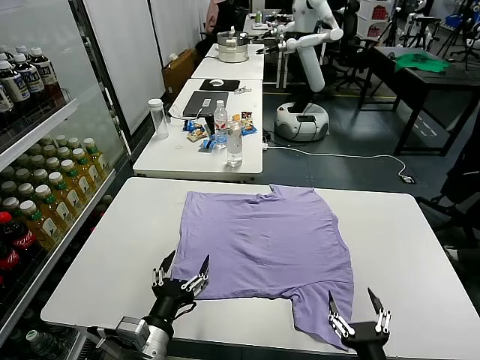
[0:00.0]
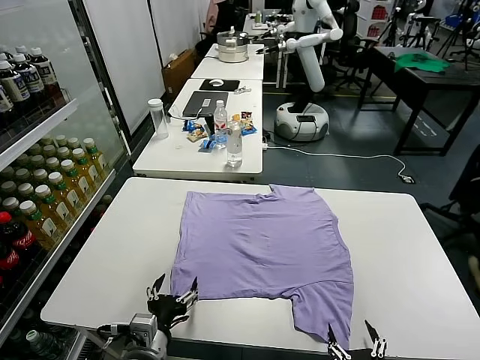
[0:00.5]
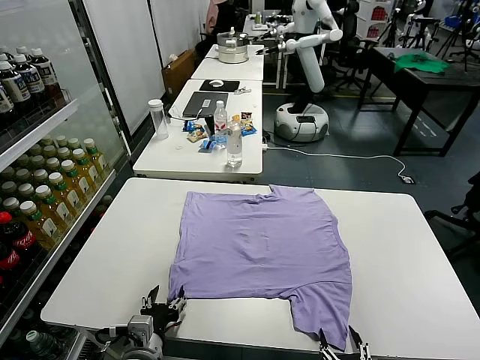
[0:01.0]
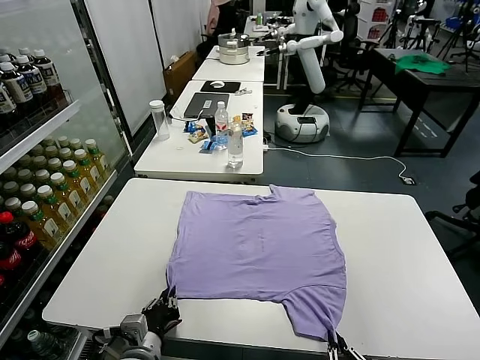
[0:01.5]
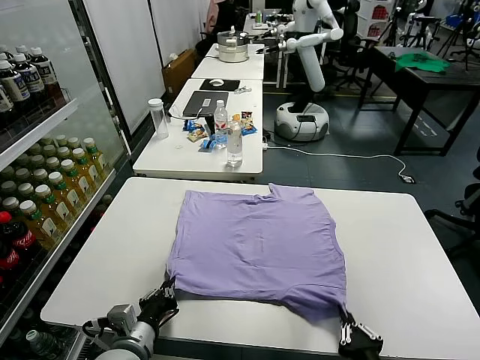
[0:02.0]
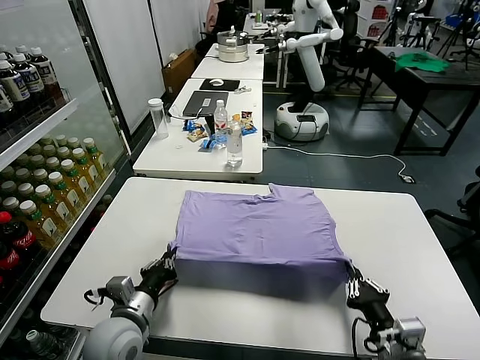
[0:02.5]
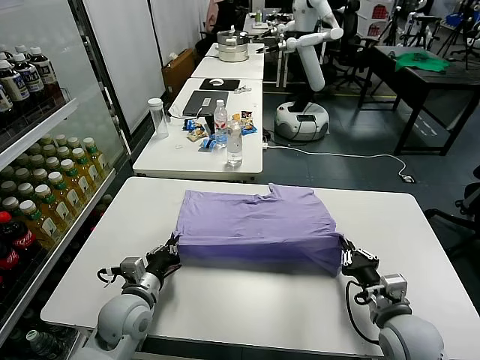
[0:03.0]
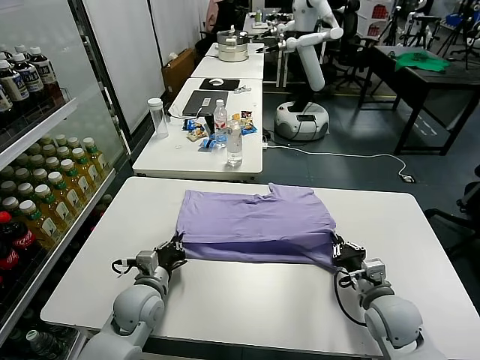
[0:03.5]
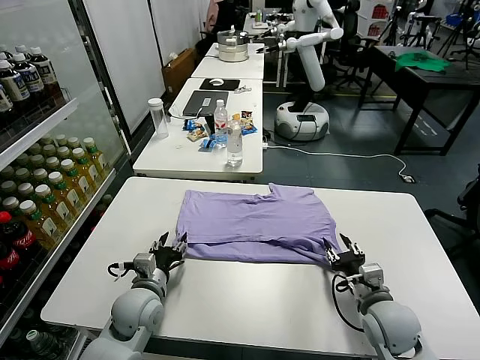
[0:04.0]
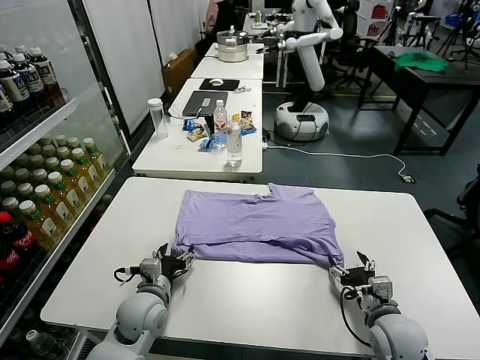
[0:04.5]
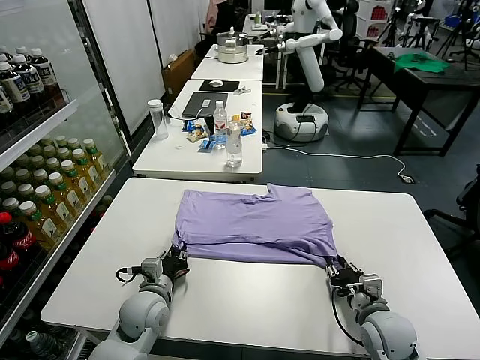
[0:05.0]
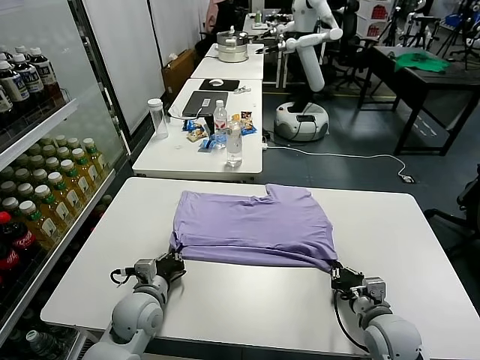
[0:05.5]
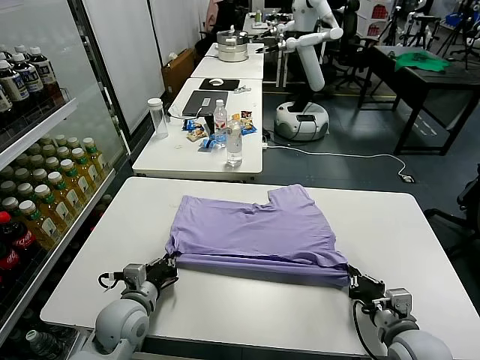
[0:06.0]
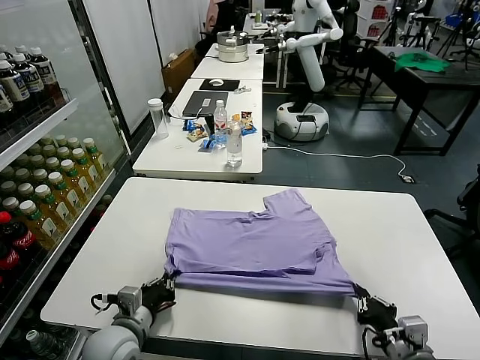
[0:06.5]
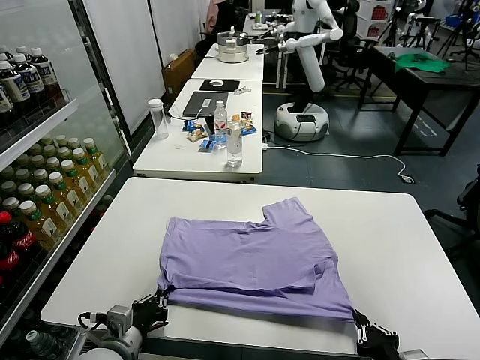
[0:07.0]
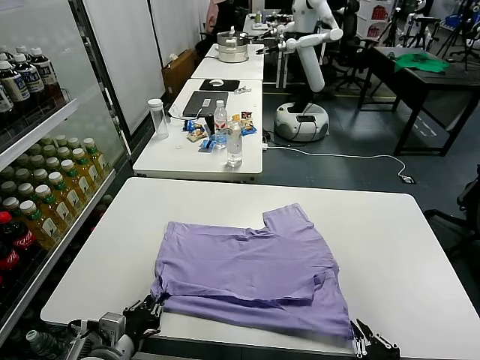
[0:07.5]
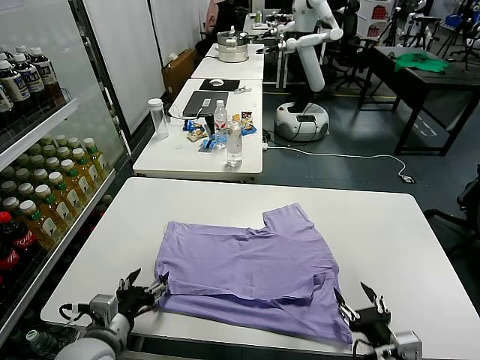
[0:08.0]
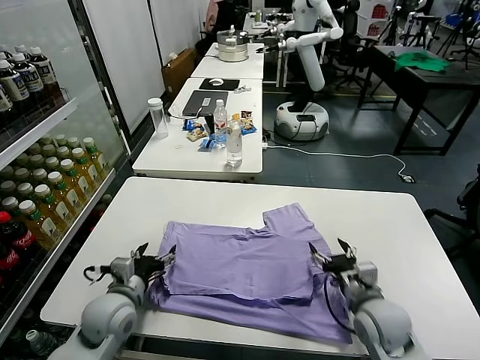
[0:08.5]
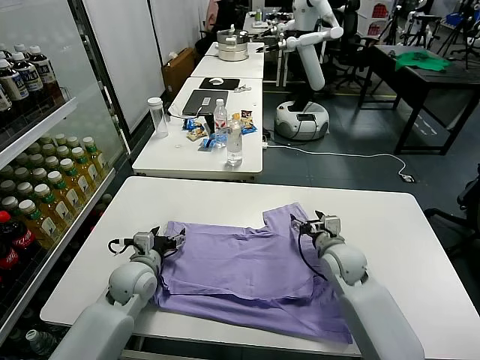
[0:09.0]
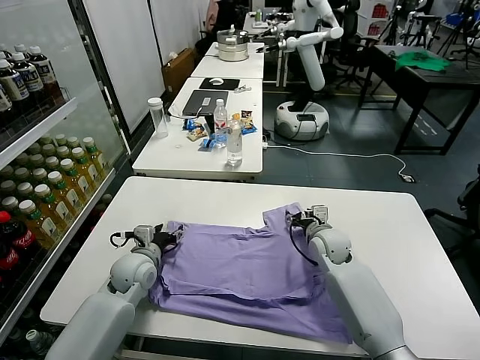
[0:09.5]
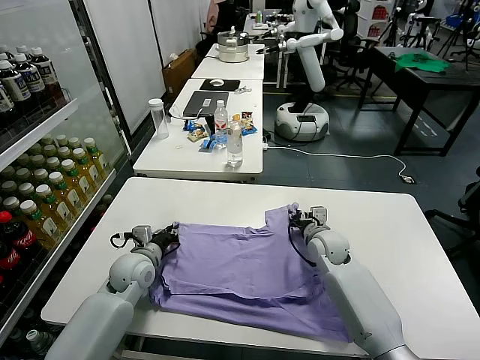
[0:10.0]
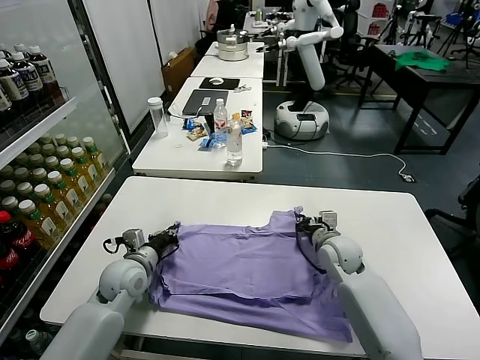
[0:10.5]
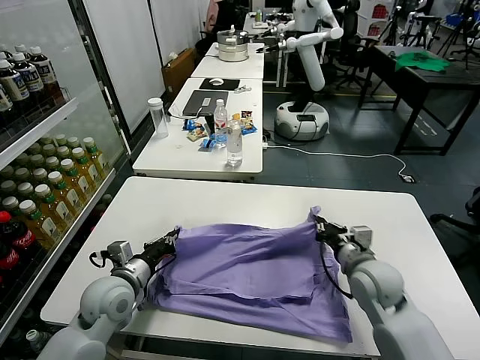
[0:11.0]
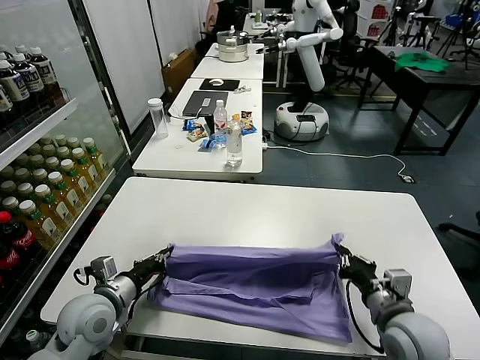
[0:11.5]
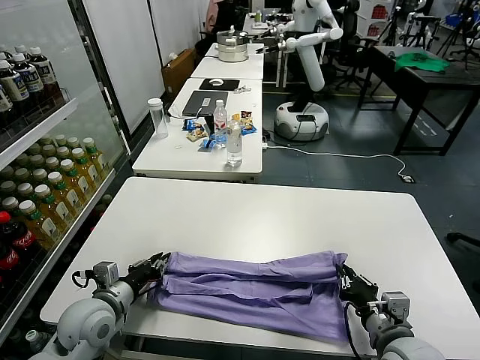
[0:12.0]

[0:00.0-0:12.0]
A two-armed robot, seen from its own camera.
Task of the whole recording: fold and organize the clothes.
Step, 0:00.0 to 0:01.5: use both grippers simultaneously to clamp the lower edge of the clothing fabric.
Step, 0:02.0 to 0:04.0: use both grippers to drag the lower edge of the fabric forward and fold it over the upper edge.
Step, 0:04.5 to 0:07.5: Drag the clothes downward with both gripper.
Step, 0:08.0 to 0:10.0: use both grippers simultaneously to clamp the upper edge of the clothing fabric.
0:02.0 to 0:04.0: Both grippers move forward, about 15 cm. The right gripper opens up. The left gripper opens.
0:04.0 to 0:06.0: The left gripper closes its fingers; the right gripper heads backward, covering approximately 5 cm, and closes its fingers.
0:06.0 to 0:08.0: The right gripper opens; the left gripper shifts approximately 10 cm backward, and opens.
0:08.0 to 0:10.0: The right gripper shifts roughly 30 cm forward, and closes up; the left gripper shifts some 20 cm forward, and closes.
0:10.0 to 0:12.0: The right gripper goes roughly 30 cm backward; the left gripper travels backward by about 15 cm.

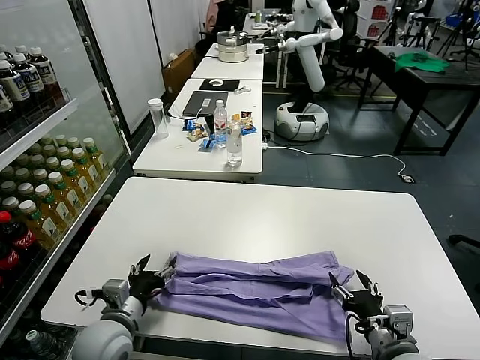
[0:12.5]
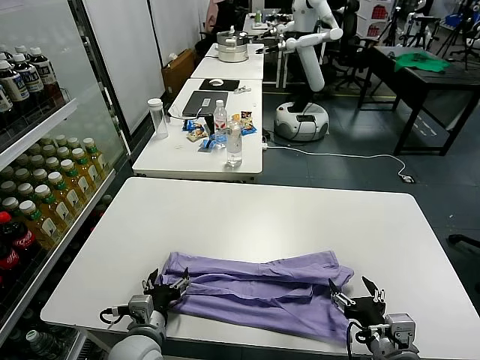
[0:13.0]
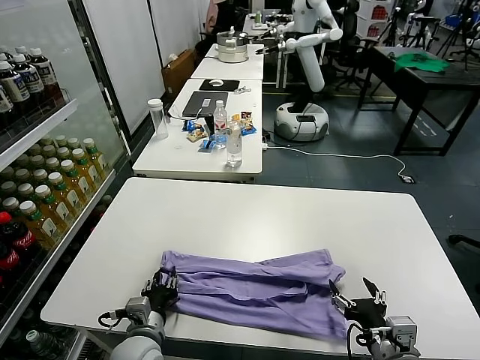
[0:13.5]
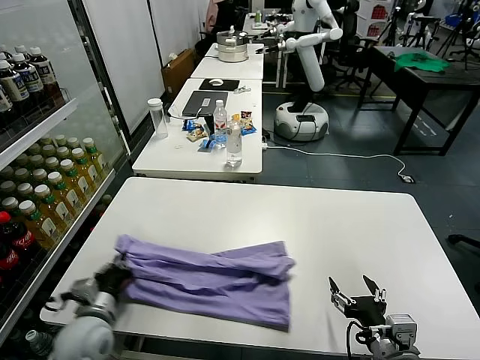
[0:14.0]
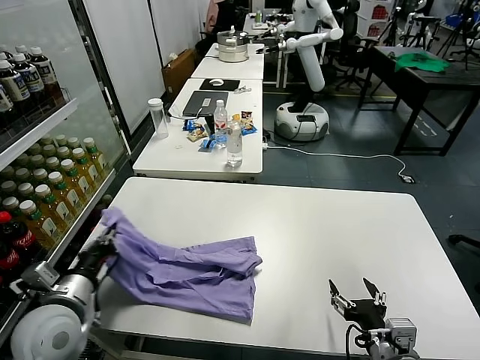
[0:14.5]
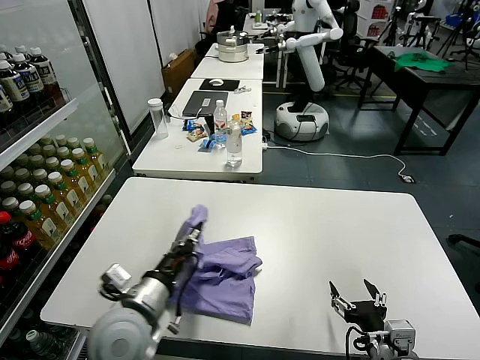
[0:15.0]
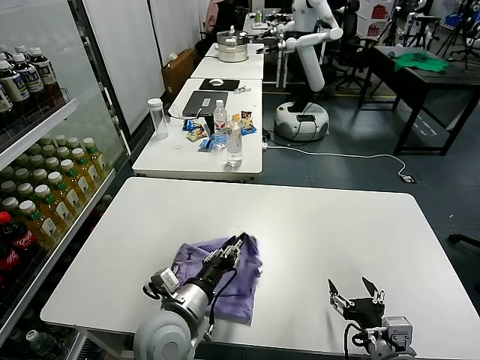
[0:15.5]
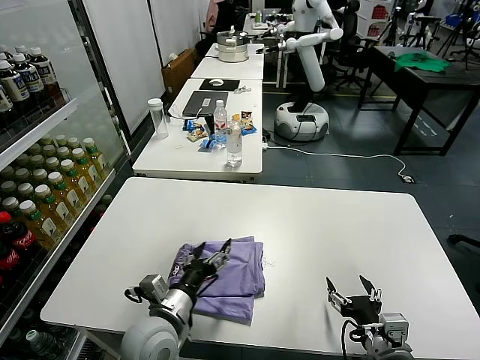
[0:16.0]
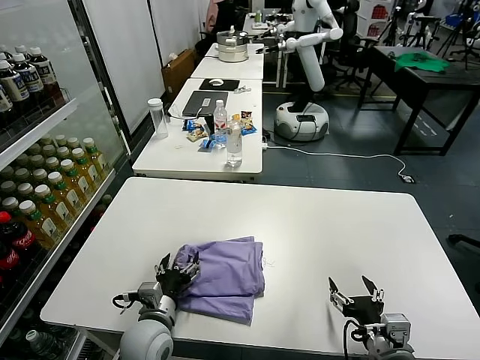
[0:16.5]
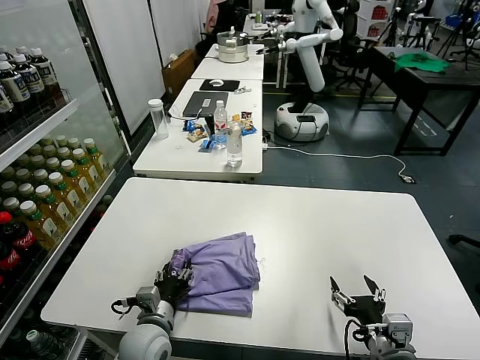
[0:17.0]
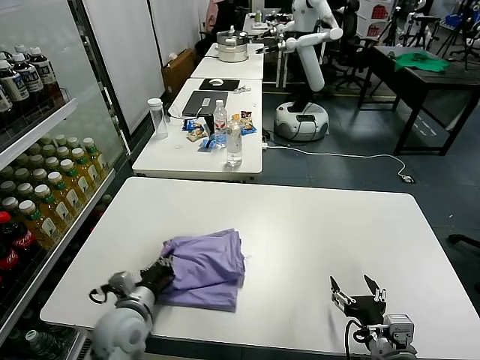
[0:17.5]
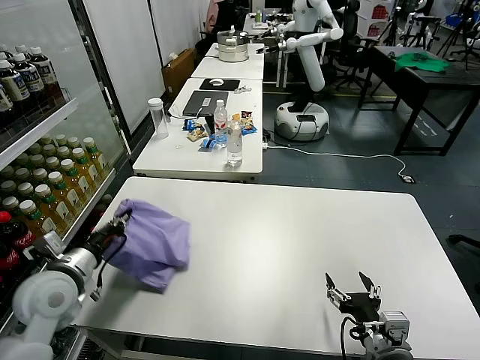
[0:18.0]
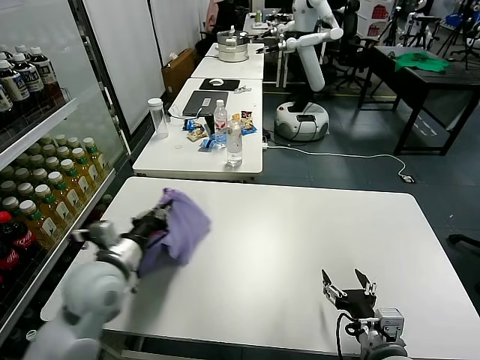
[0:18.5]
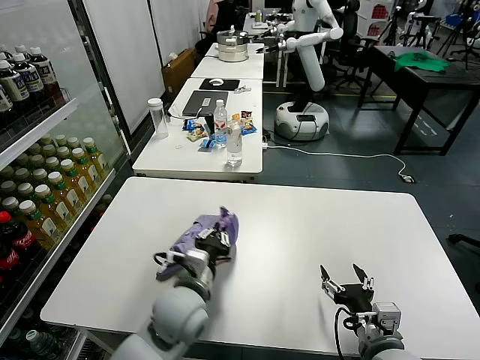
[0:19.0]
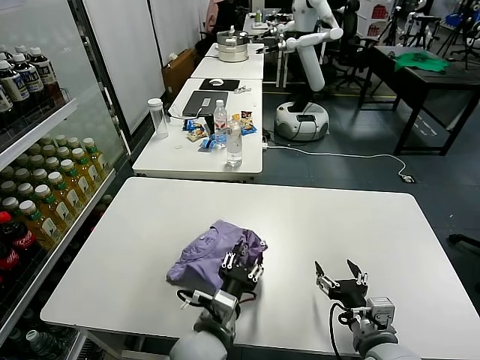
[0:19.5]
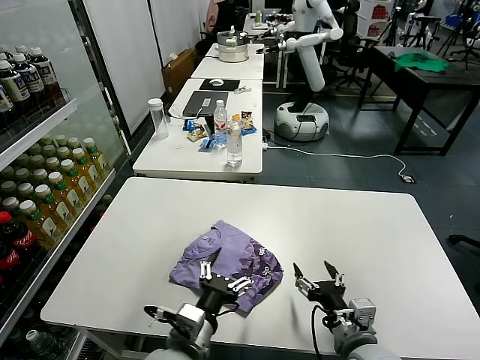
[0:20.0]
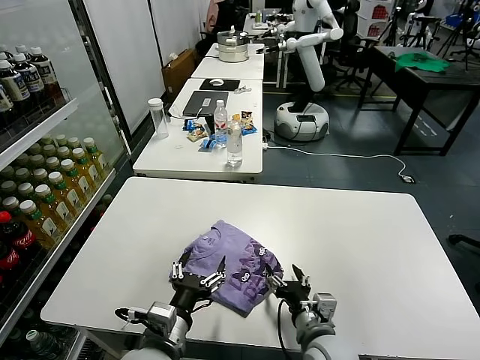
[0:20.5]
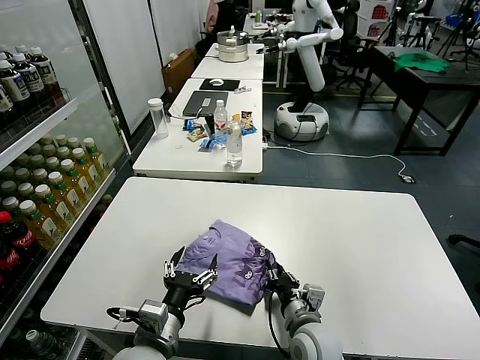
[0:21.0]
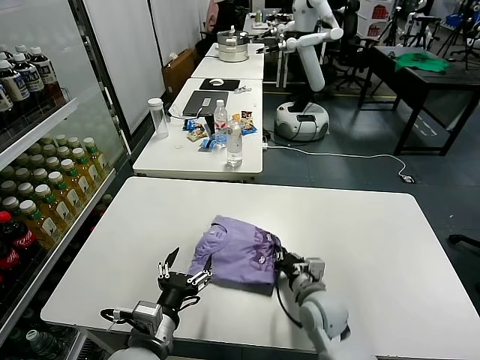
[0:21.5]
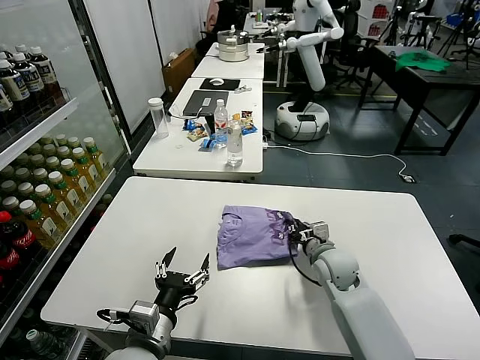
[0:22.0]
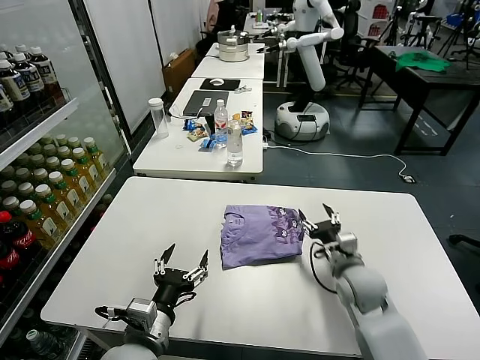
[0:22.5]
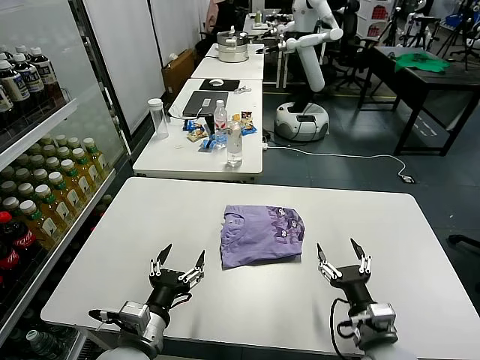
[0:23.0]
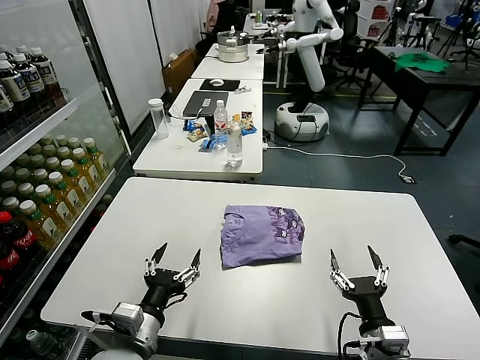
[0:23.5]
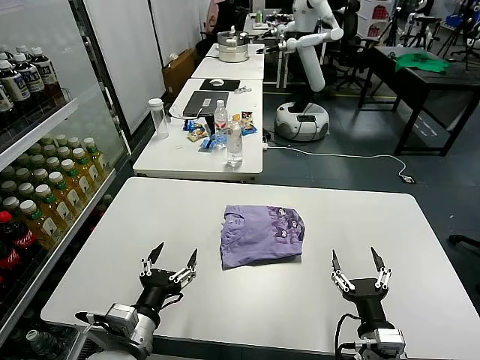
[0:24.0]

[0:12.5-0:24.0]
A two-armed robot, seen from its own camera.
Task of the whole recording: fold and organize the clothes.
Step, 0:12.5 to 0:13.5: use the left gripper to clamp the left edge of the fabric.
Step, 0:14.0 to 0:15.5: use the left gripper to drag the left edge of the fabric to the left and folds it over the right edge.
Step, 0:16.0 to 0:19.5: Flip the folded clothes over with left gripper.
Step, 0:20.5 to 0:22.0: Drag the clothes to the center of the table.
0:12.5 to 0:14.5: The left gripper is displaced upward and to the left by approximately 10 cm, and closes up.
0:14.5 to 0:16.5: The left gripper moves to the right and downward, roughly 15 cm, and opens up.
0:16.5 to 0:18.5: The left gripper is displaced upward and to the left by about 15 cm, and closes up.
0:18.5 to 0:20.0: The left gripper is displaced to the right, backward and downward by roughly 20 cm, and opens.
0:20.0 to 0:22.0: The right gripper is displaced forward by about 20 cm, and closes its fingers; the left gripper shifts about 5 cm to the left.
0:22.0 to 0:24.0: The right gripper travels backward by about 25 cm, and opens.
